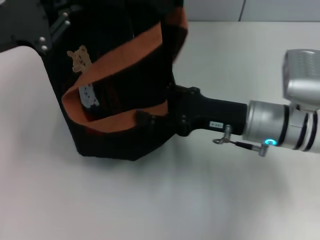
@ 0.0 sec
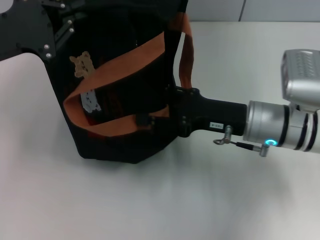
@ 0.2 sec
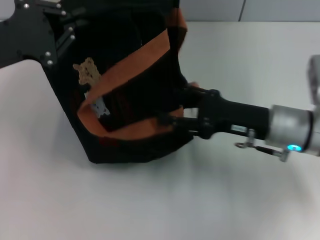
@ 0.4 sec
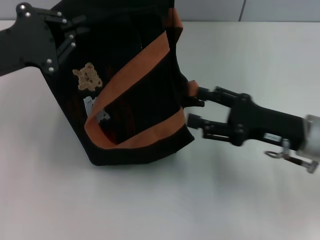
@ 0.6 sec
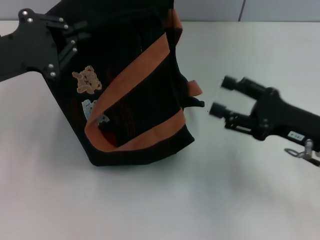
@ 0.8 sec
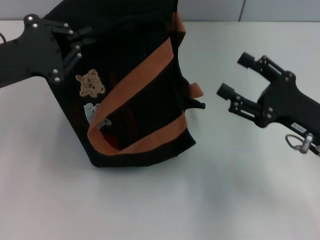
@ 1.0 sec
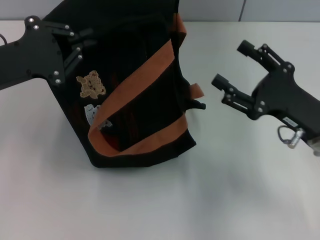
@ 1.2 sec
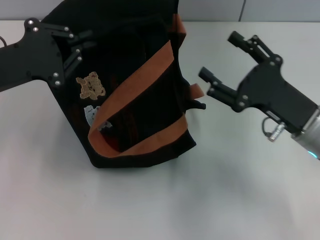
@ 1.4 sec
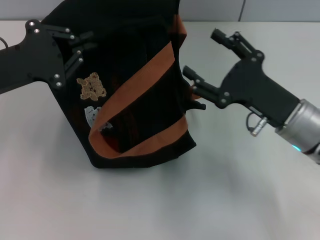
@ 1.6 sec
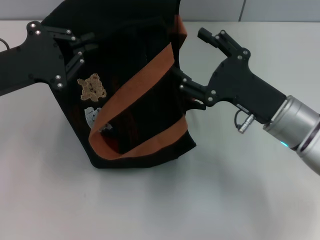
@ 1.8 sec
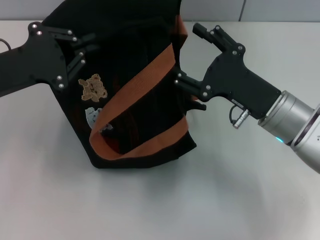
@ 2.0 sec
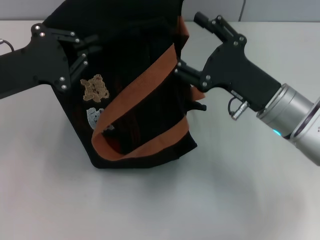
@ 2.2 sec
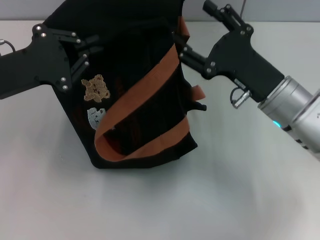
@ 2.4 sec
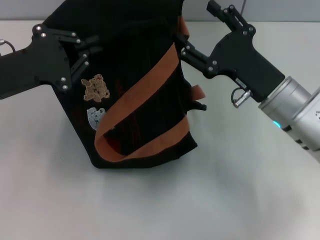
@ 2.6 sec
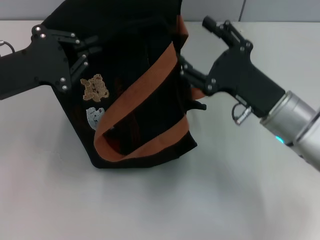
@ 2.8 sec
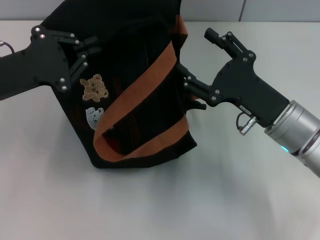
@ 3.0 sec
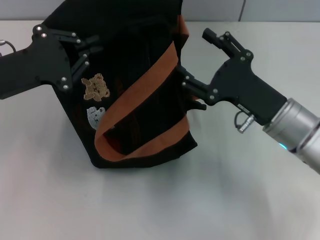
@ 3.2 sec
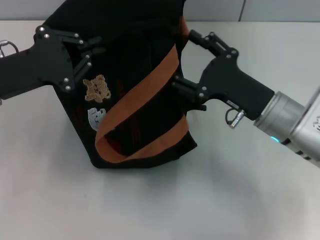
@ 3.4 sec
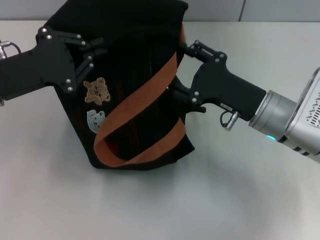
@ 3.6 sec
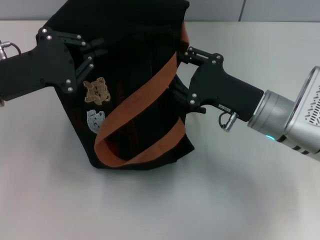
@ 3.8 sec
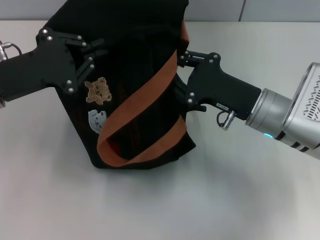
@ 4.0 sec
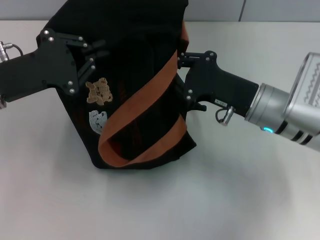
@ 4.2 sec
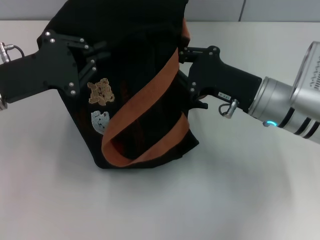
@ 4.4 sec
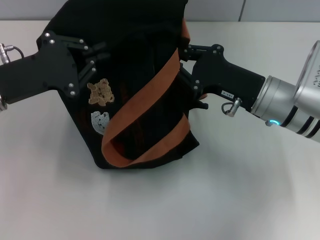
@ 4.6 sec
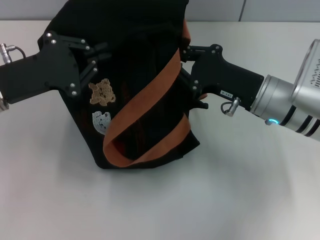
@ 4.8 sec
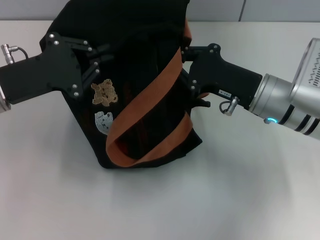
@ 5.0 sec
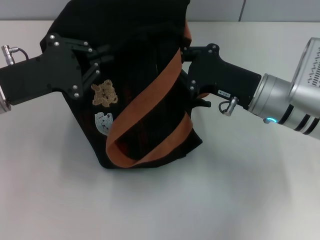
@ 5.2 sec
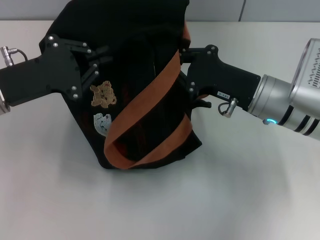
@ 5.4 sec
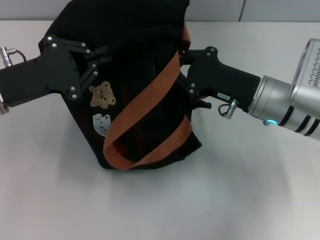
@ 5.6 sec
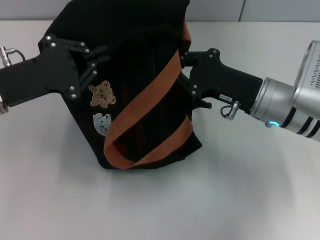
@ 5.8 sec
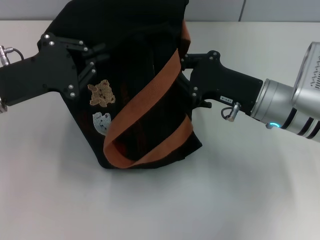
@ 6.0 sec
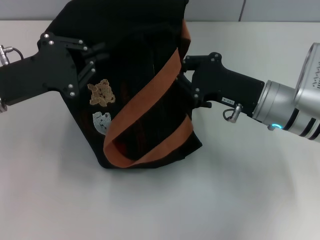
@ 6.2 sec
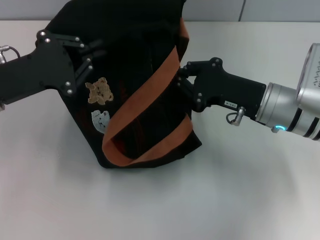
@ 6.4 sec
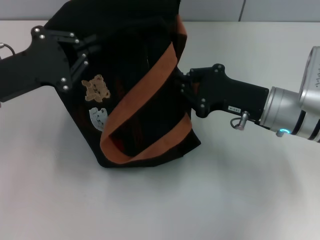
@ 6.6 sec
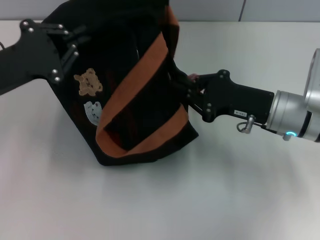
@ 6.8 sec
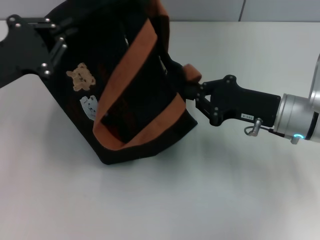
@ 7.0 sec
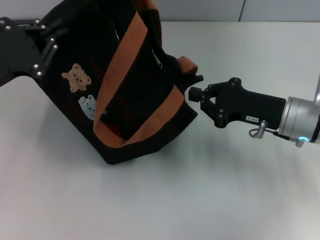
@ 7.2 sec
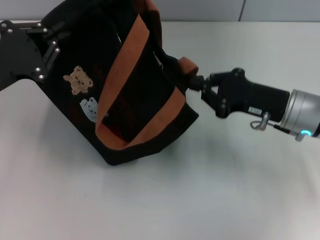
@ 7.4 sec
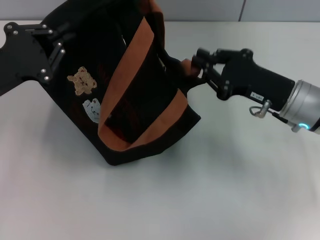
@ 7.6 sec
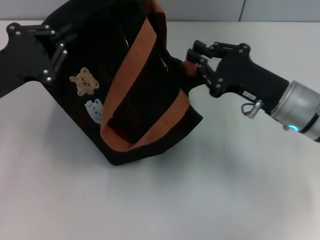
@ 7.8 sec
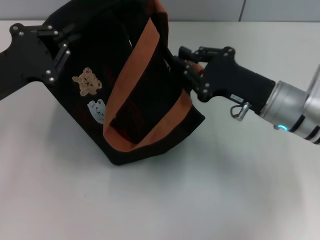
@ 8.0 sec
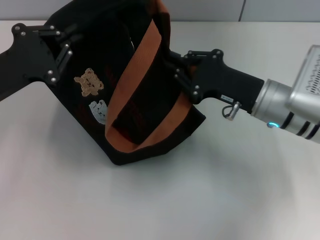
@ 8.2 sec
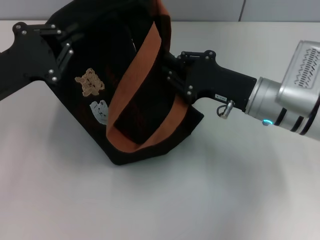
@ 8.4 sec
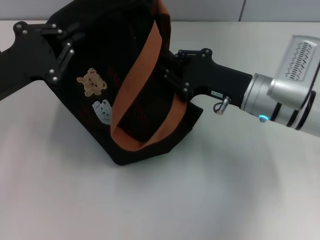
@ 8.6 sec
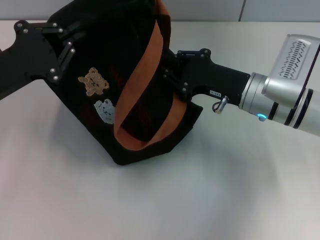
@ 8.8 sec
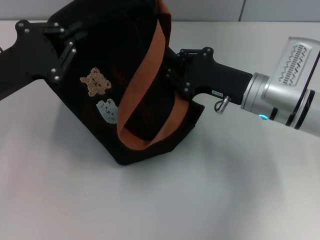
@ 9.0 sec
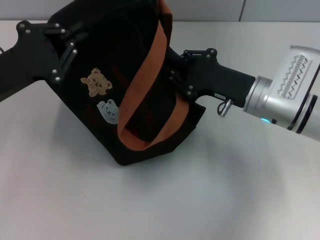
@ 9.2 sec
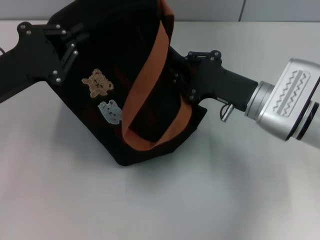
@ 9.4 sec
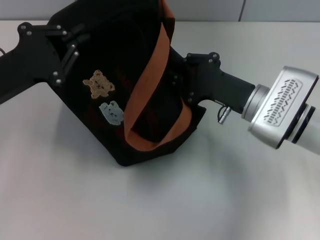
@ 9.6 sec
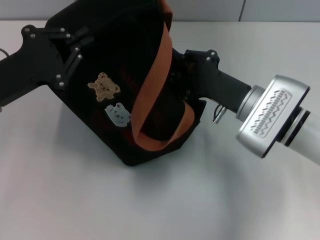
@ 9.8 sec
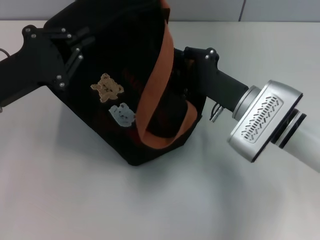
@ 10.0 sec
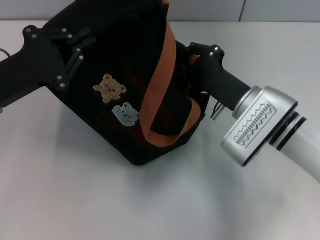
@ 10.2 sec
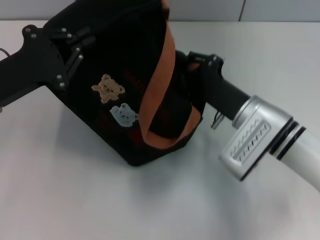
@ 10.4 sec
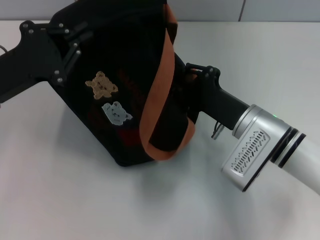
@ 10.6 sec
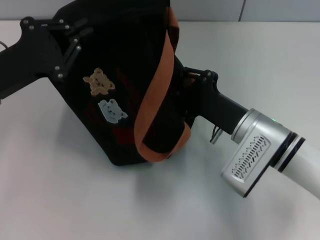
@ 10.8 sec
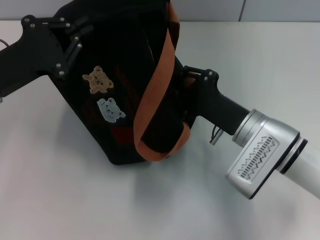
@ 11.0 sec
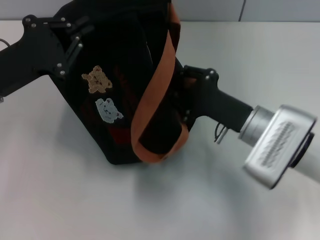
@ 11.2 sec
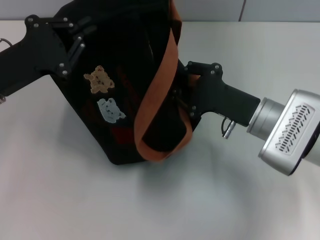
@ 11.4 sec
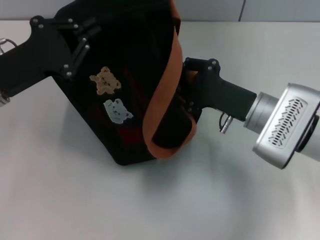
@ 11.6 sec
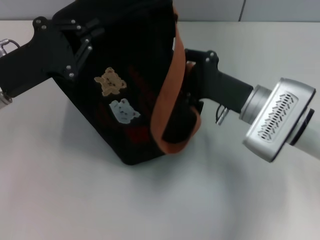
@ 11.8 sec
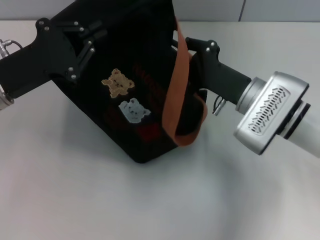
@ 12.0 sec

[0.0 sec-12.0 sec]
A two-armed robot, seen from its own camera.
1.6 sec to 3.0 sec: The grippers move only a little.
3.0 sec to 4.4 sec: The right gripper closes up.
4.4 sec to 6.0 sec: Both grippers stay about where they are.
7.6 sec to 9.0 sec: The right gripper ends up approximately 5 cm from where it was.

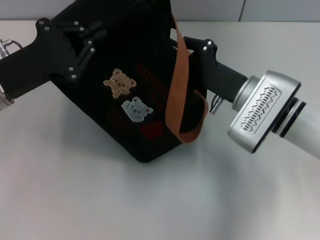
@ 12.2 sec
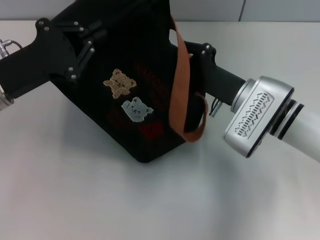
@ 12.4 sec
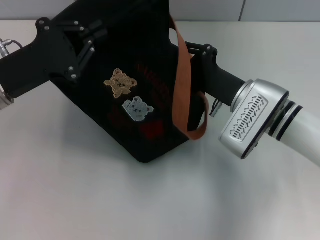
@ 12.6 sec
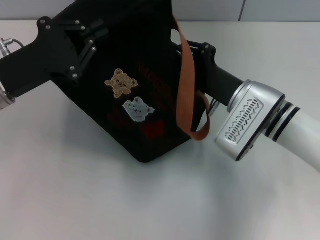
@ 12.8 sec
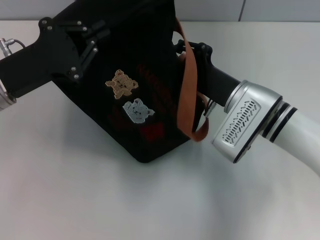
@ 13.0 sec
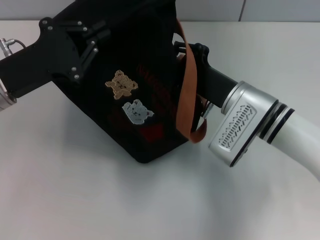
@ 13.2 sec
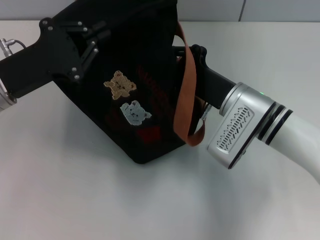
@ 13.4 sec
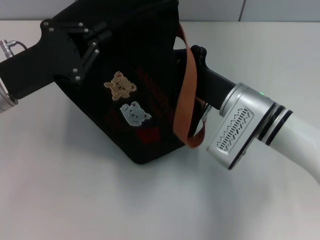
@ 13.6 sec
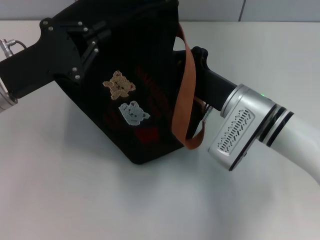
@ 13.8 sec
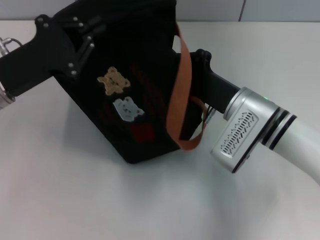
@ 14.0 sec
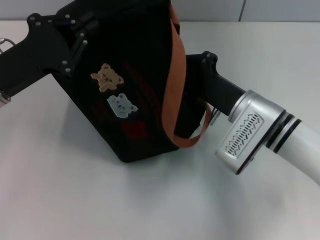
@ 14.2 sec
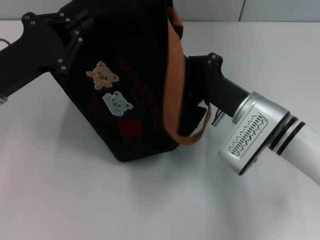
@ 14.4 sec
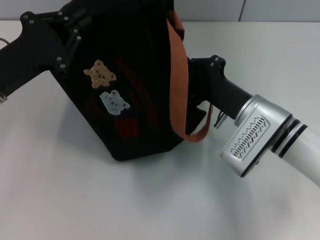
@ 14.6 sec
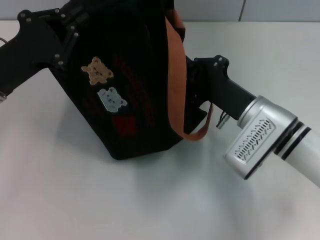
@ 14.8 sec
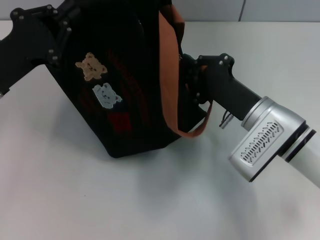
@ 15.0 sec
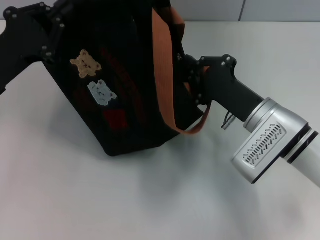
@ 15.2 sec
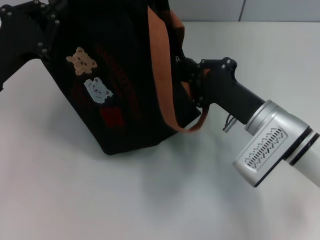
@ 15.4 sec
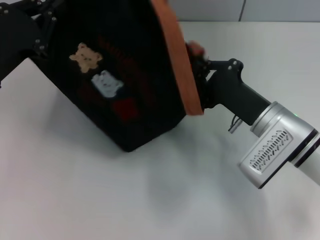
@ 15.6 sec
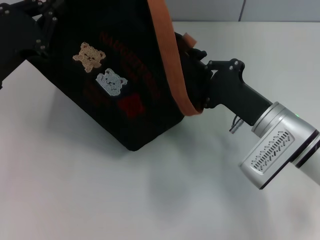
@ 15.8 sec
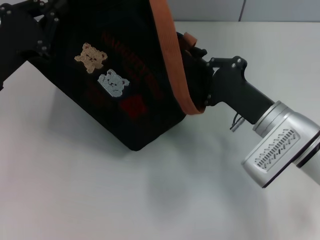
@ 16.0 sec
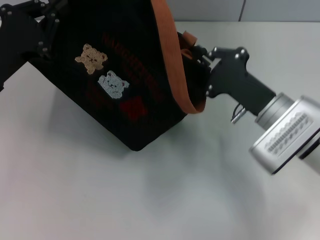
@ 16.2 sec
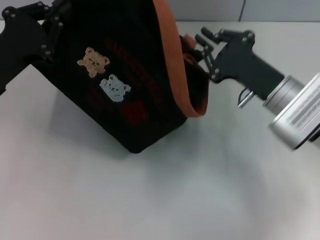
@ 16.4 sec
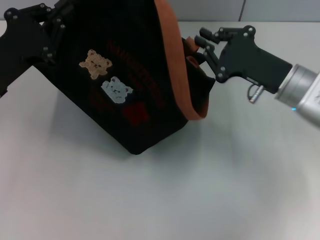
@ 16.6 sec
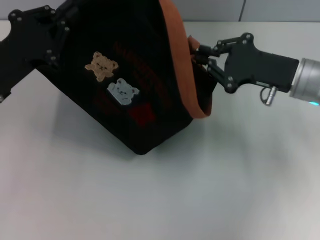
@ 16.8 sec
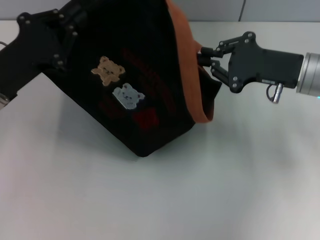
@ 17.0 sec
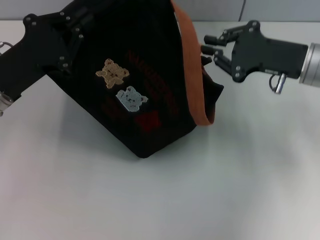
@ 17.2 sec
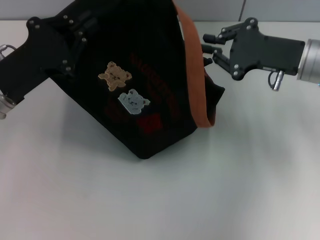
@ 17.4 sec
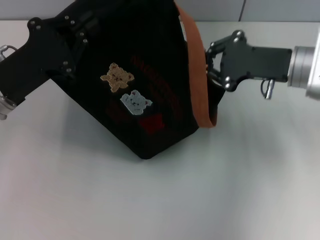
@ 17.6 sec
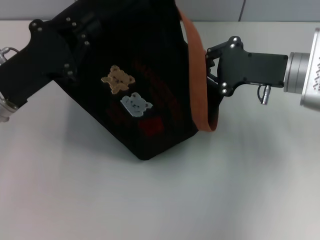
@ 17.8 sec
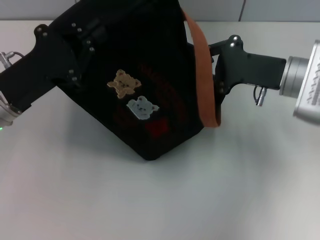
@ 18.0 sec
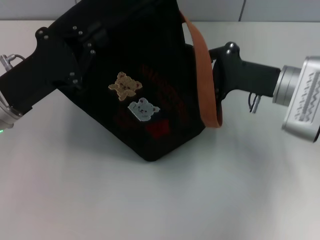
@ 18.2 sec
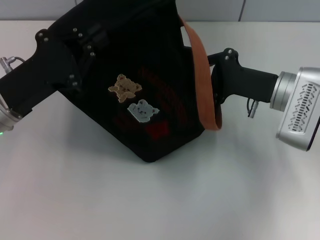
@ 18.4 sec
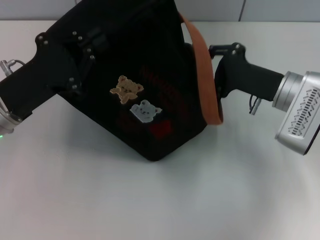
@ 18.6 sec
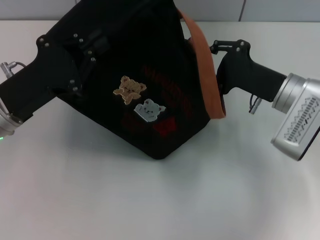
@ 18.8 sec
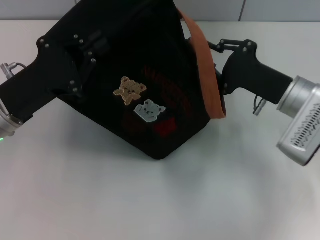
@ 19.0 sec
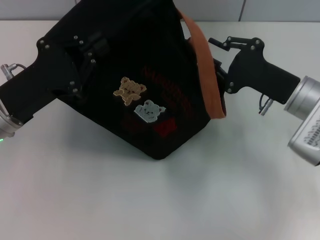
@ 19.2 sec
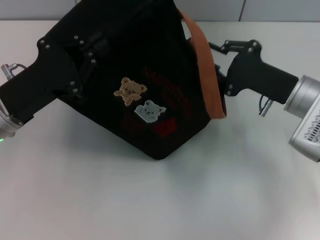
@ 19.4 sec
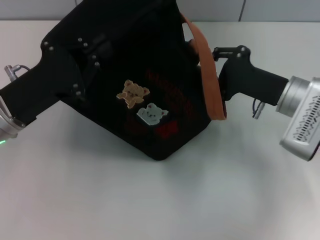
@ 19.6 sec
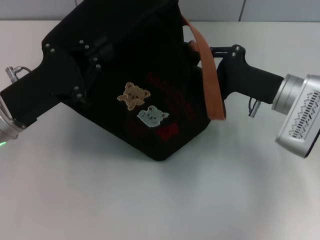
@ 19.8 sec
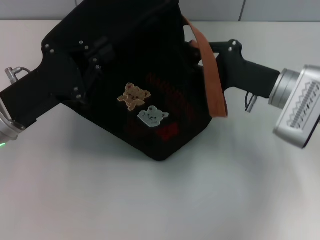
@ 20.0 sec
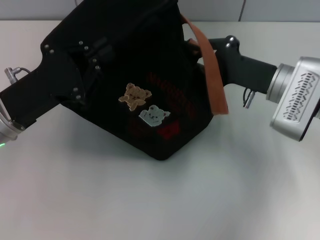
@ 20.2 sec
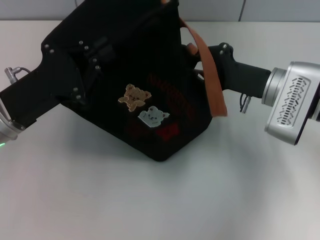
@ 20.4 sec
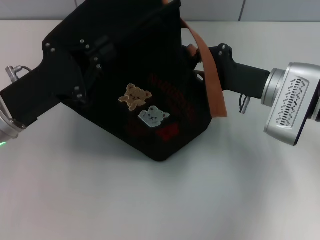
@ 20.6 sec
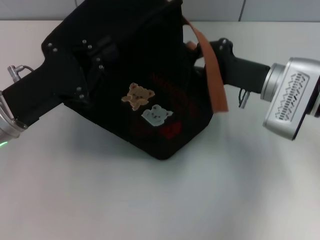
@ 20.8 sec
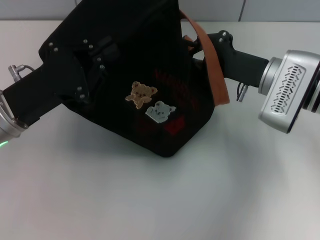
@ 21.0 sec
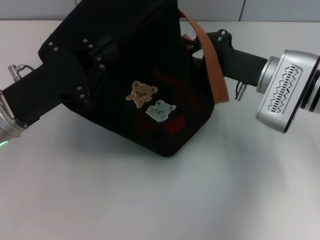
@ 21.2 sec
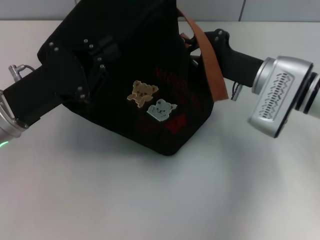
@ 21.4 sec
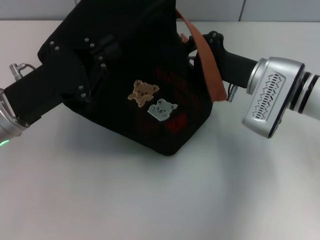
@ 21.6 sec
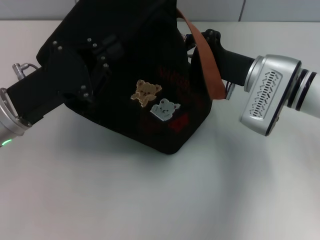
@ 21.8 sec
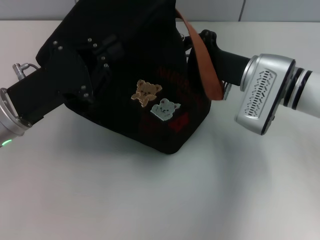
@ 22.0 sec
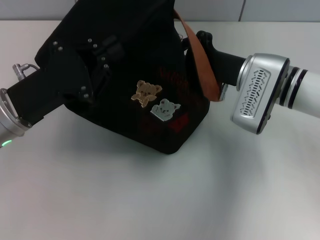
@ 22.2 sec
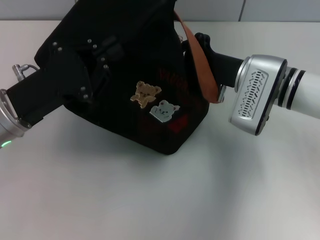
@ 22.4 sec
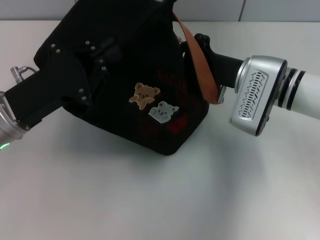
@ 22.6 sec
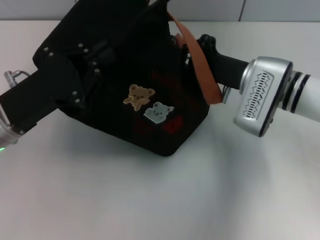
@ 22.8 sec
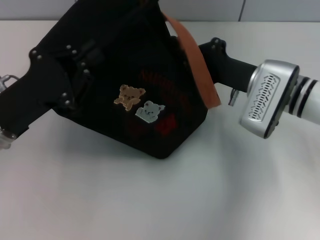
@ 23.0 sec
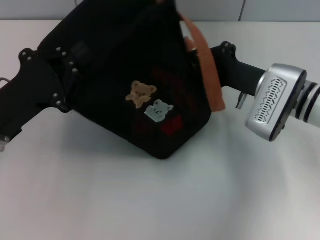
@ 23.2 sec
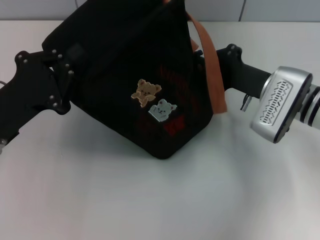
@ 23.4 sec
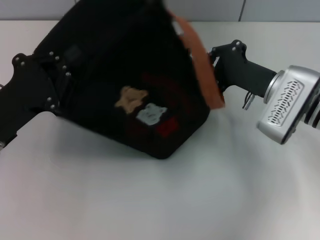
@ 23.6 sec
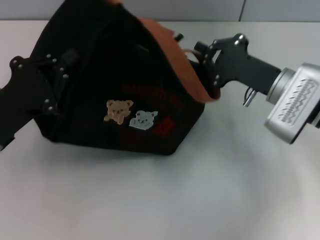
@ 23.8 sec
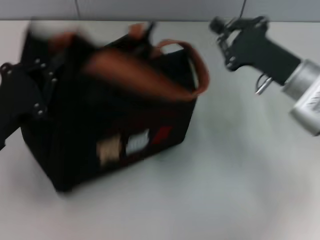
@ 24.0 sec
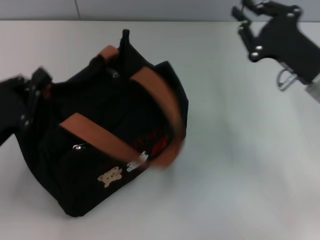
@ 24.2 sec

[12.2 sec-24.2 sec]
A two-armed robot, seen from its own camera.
Step, 12.2 sec to 16.0 sec: Pull open the zipper with your right hand.
12.2 sec to 13.8 sec: The right gripper closes.
15.2 sec to 16.6 sec: The right gripper ends up some 10 cm from where it was.
18.2 sec to 22.6 sec: The grippers move only a little.
22.6 sec to 24.2 sec: The right gripper heads to the right, covering roughly 10 cm, while the left gripper goes approximately 10 cm to the left and backward.
